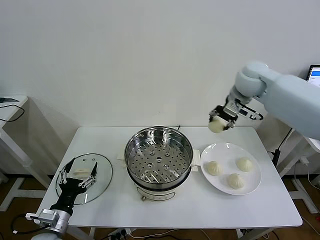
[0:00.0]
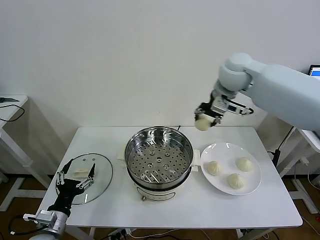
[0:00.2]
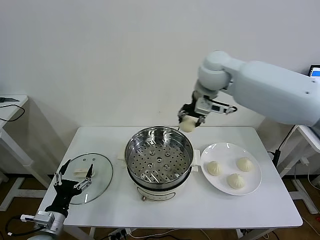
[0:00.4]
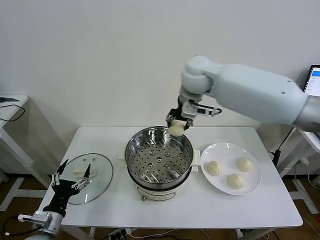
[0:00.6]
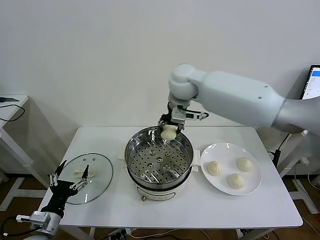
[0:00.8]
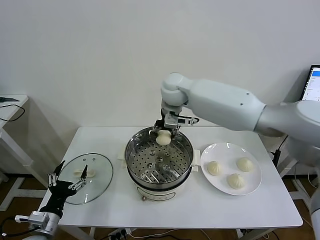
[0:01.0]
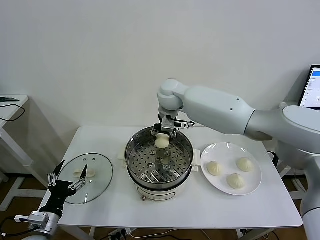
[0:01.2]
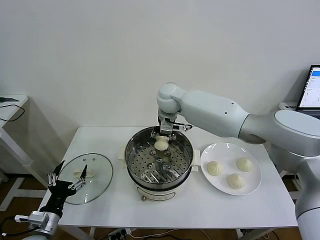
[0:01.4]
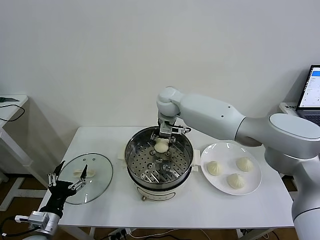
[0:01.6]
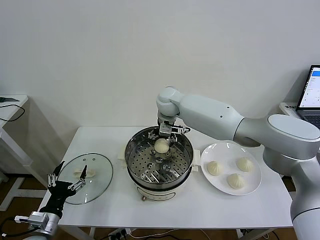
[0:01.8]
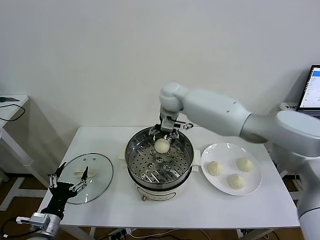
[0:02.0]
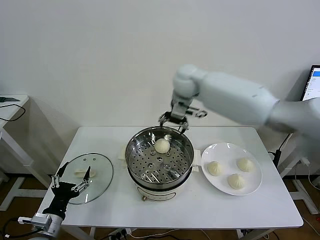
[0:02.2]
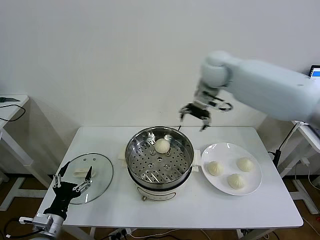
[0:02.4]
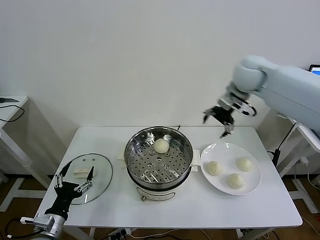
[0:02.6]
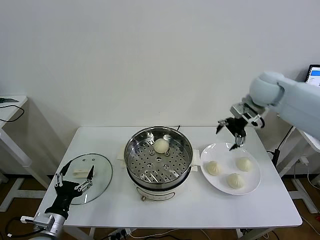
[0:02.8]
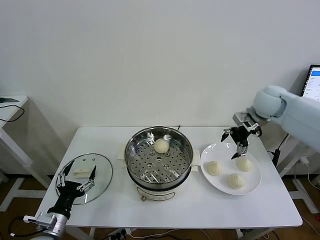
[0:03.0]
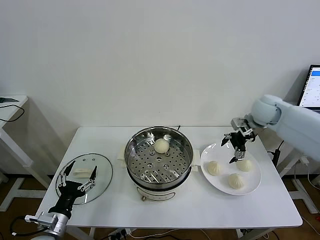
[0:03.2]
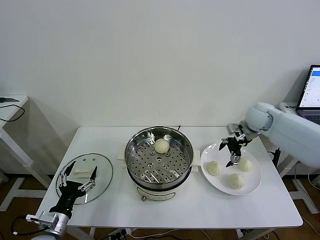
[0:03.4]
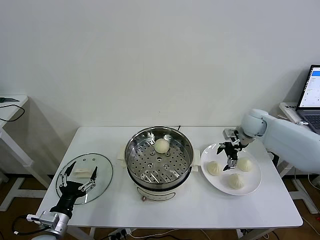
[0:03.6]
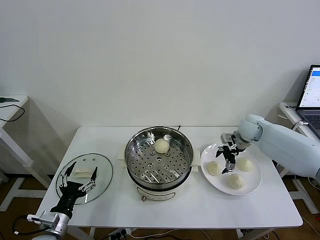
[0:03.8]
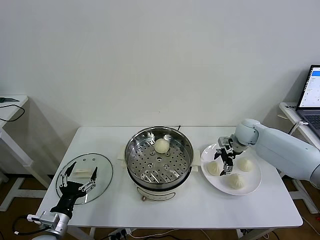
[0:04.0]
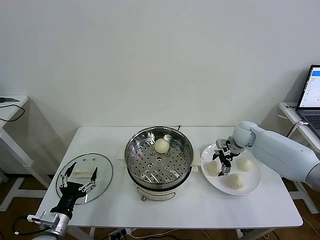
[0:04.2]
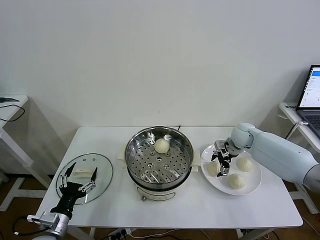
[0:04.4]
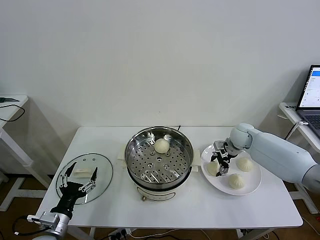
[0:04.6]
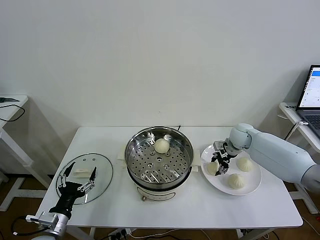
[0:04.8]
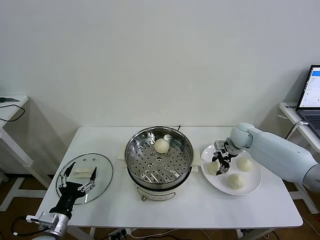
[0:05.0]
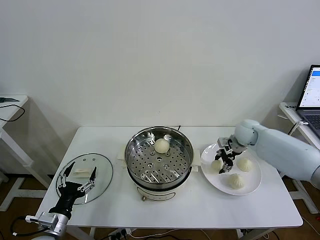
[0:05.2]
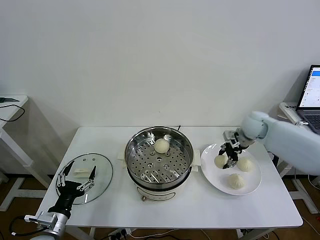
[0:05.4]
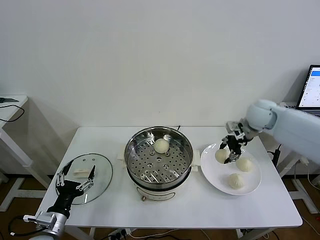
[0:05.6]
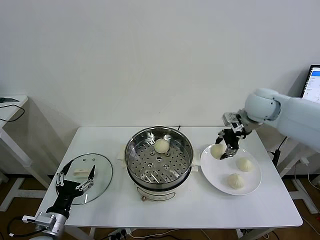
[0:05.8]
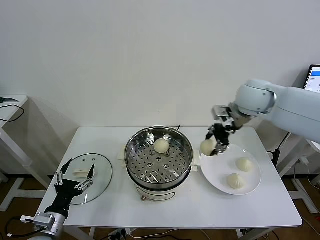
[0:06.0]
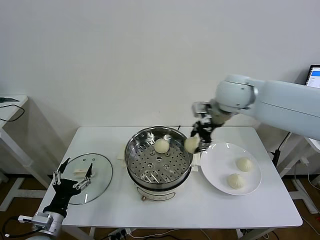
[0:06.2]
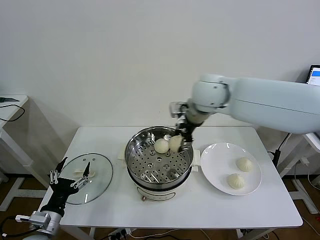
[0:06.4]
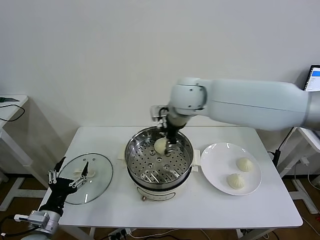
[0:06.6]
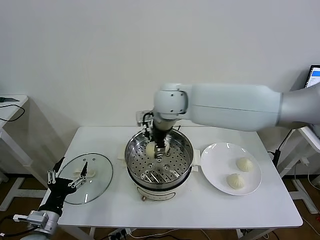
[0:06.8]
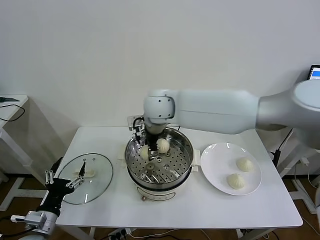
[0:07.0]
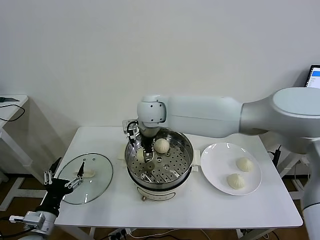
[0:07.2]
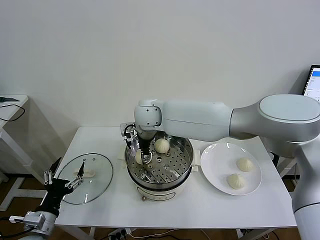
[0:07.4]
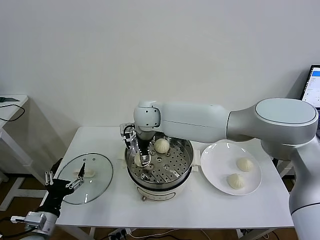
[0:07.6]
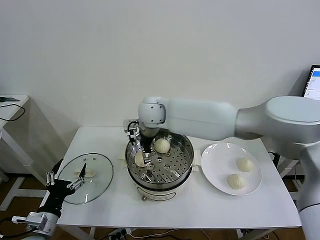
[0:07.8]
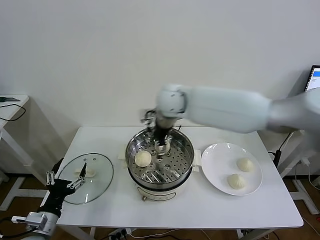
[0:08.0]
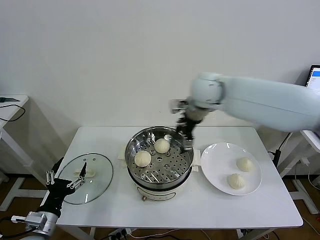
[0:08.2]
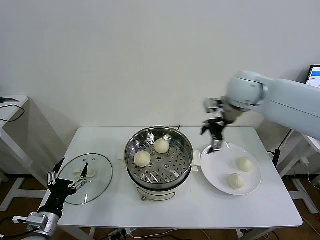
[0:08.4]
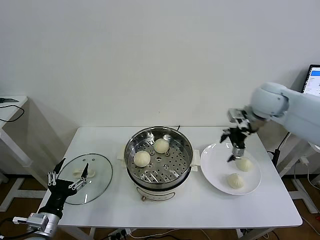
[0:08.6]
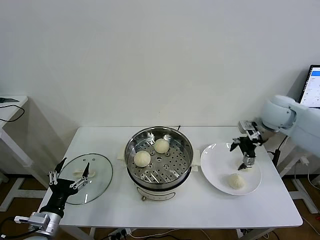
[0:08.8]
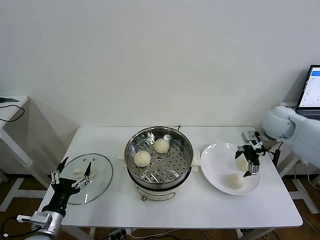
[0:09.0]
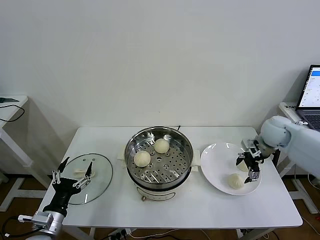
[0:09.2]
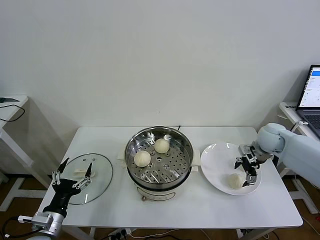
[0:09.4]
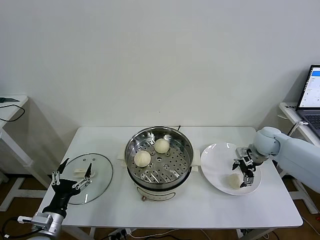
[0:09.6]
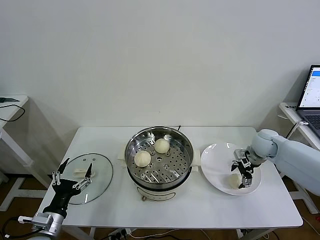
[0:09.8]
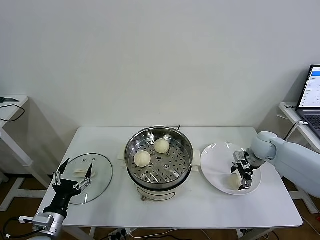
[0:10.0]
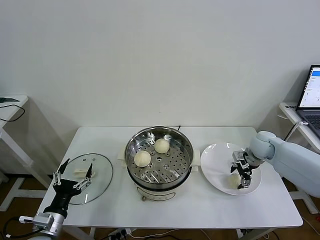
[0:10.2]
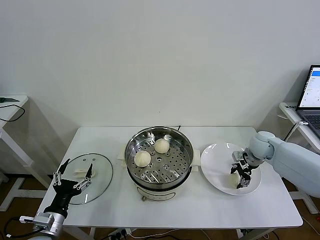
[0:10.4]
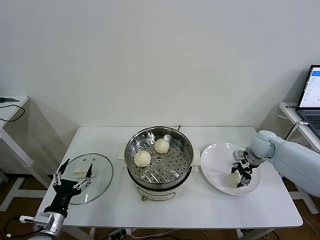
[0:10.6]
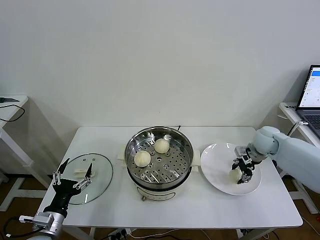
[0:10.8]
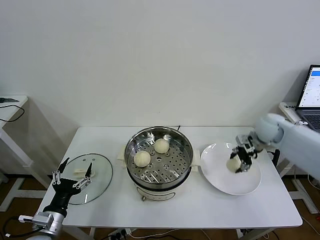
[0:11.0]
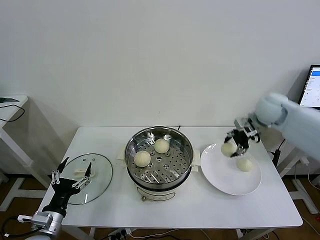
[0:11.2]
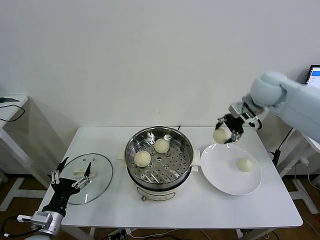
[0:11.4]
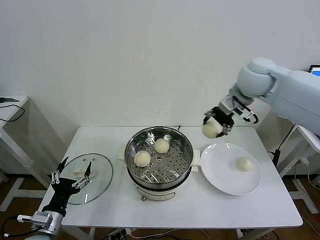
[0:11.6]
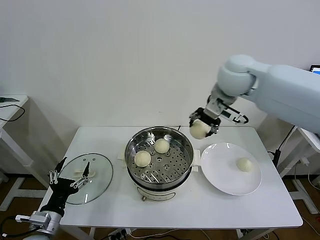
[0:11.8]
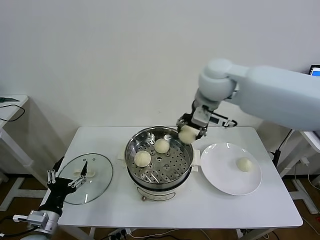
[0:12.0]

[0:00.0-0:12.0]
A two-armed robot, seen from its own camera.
Task of the whole recording: take steamed baozi put them in steamer then cover it.
Step, 0.0 to 1.8 s: Place the baozi on the steamer with right gripper.
Step, 2.0 to 4.8 s: Grasp the baozi in the plate with right gripper.
Step, 5.0 to 7.6 s: Place the baozi on the steamer with right gripper.
Step, 7.8 to 10.4 s: Grasp the baozi in the plate with right gripper.
0.0 to 1.6 s: The right gripper travels to the left and downward by some 25 cm, and opens up.
1.6 to 3.0 s: The right gripper is displaced to the right by roughly 30 cm, and opens its fingers.
3.0 to 4.4 s: The right gripper shifts approximately 15 cm downward.
4.4 to 6.0 s: The right gripper travels upward and to the left by roughly 25 cm, and closes its fingers.
6.0 to 7.6 s: The right gripper is displaced to the left by about 25 cm, and opens its fingers.
7.6 to 9.0 s: The right gripper travels to the right by about 40 cm.
9.0 to 10.4 s: The right gripper travels downward by roughly 10 cm, and closes its fingers.
10.4 to 12.0 s: The right gripper travels upward and to the left by about 35 cm.

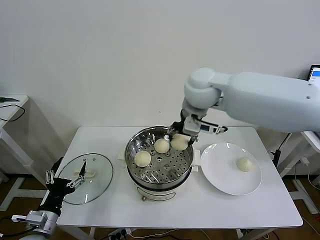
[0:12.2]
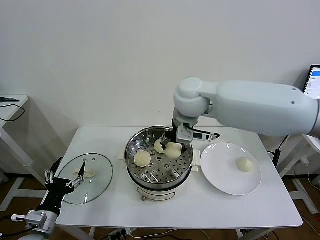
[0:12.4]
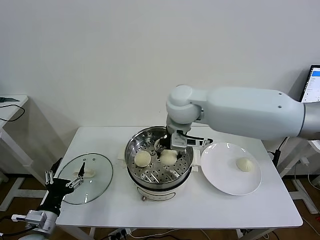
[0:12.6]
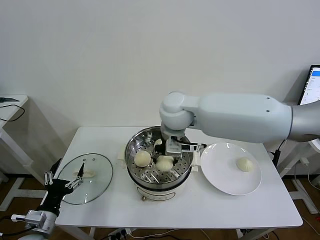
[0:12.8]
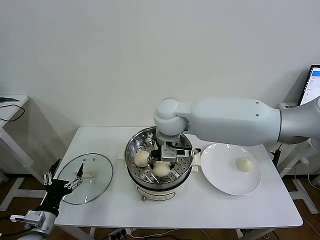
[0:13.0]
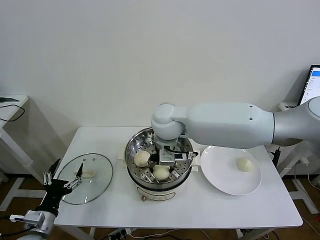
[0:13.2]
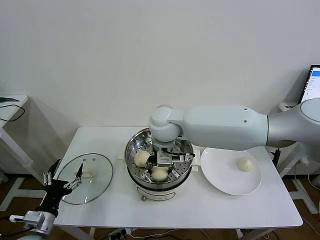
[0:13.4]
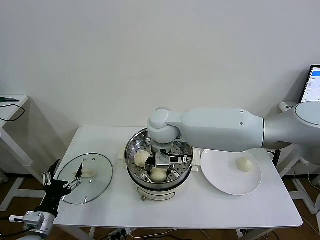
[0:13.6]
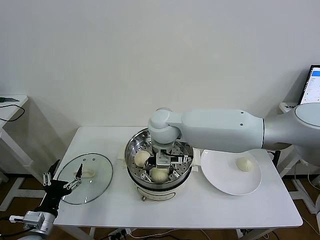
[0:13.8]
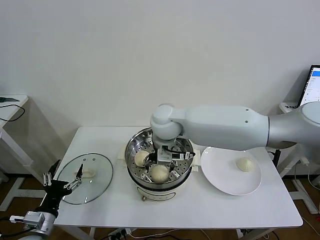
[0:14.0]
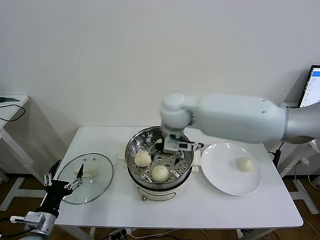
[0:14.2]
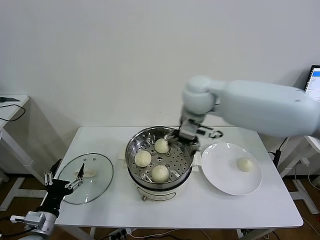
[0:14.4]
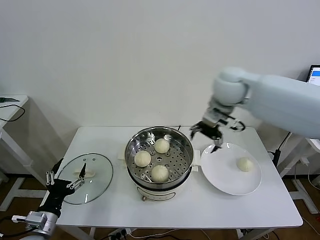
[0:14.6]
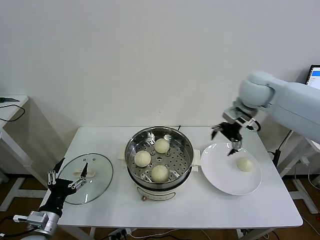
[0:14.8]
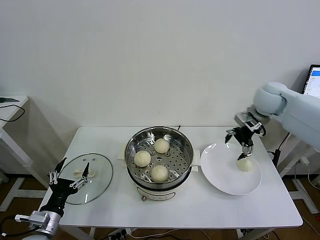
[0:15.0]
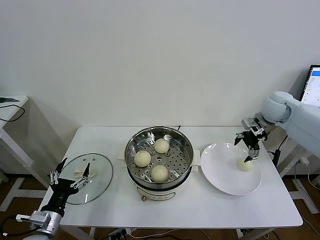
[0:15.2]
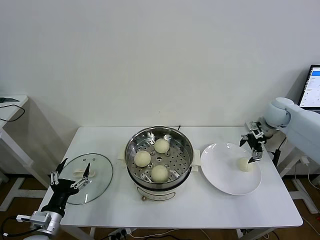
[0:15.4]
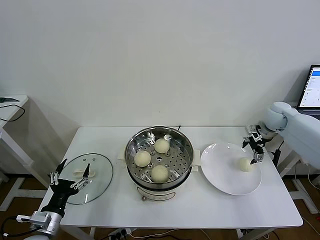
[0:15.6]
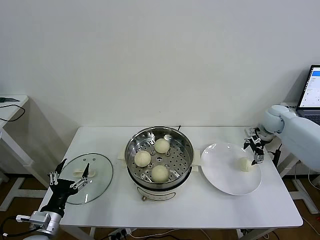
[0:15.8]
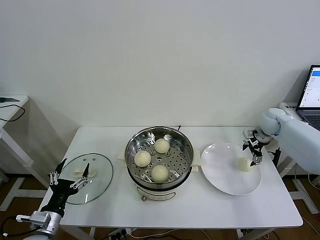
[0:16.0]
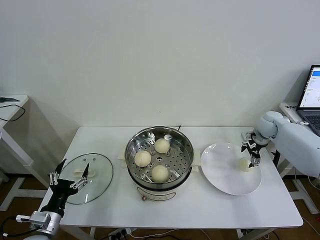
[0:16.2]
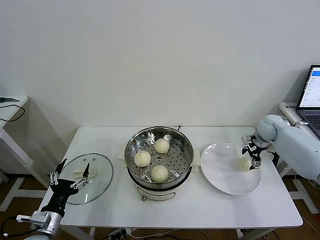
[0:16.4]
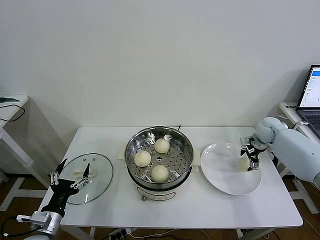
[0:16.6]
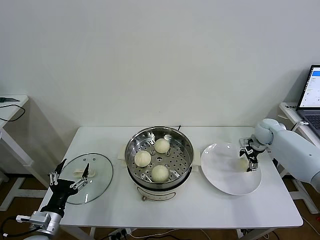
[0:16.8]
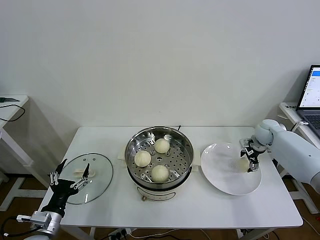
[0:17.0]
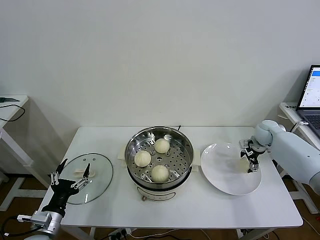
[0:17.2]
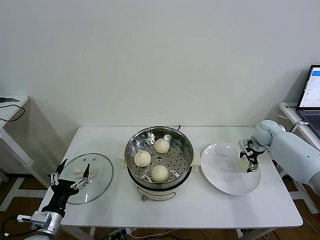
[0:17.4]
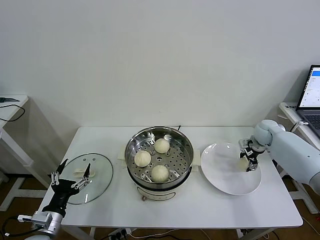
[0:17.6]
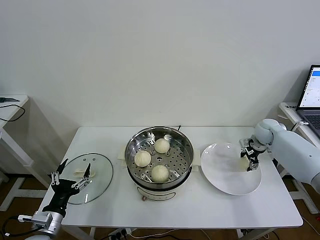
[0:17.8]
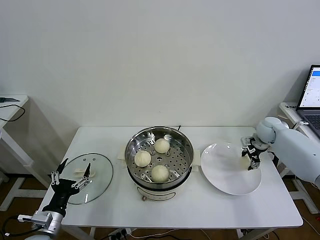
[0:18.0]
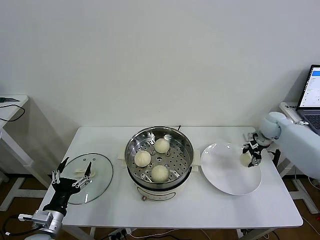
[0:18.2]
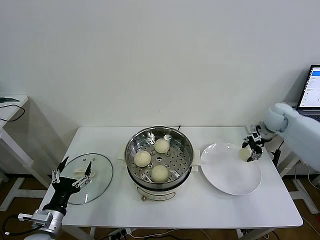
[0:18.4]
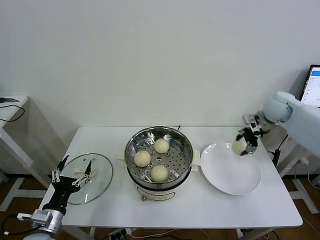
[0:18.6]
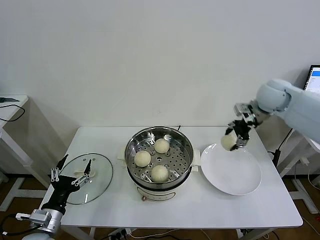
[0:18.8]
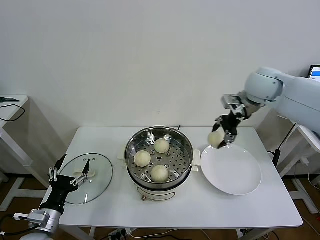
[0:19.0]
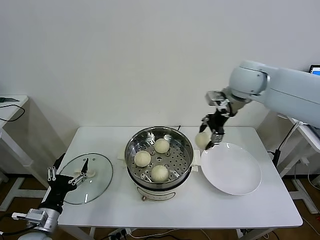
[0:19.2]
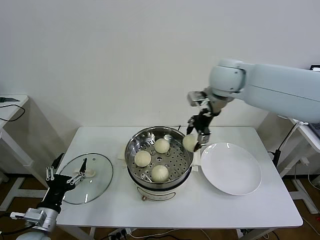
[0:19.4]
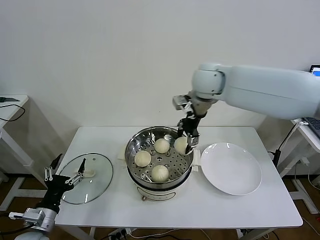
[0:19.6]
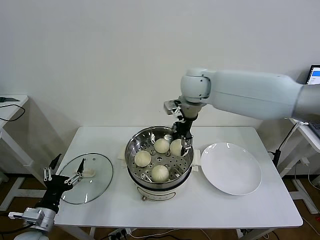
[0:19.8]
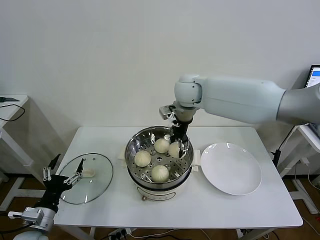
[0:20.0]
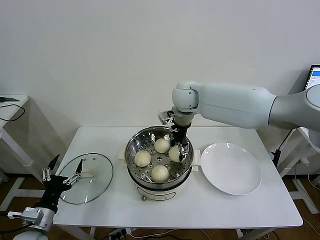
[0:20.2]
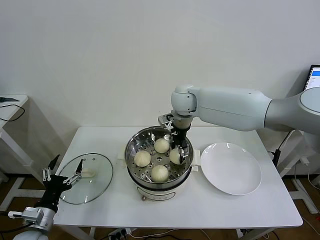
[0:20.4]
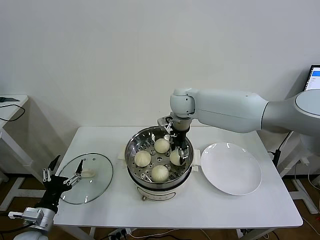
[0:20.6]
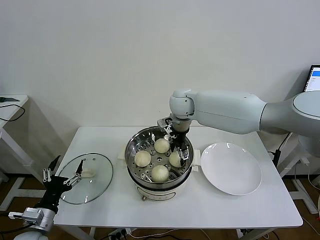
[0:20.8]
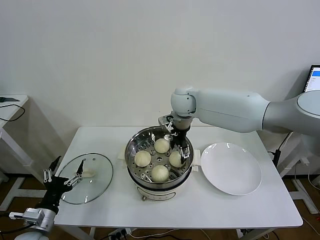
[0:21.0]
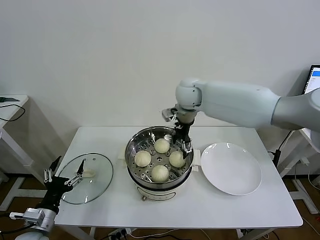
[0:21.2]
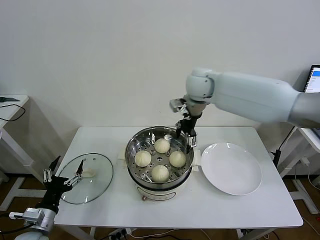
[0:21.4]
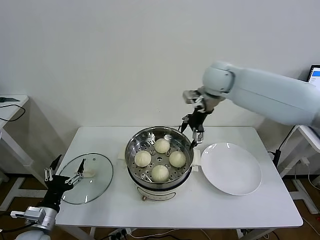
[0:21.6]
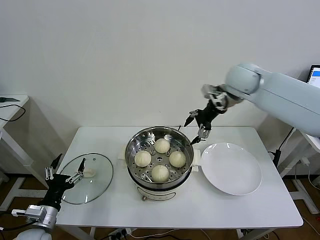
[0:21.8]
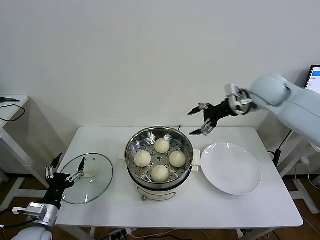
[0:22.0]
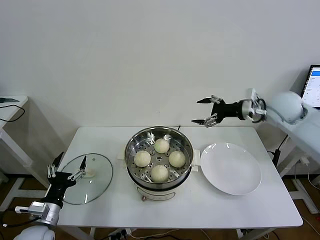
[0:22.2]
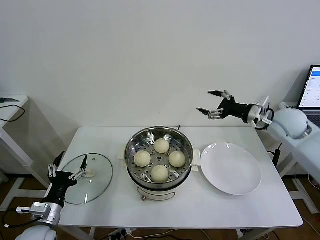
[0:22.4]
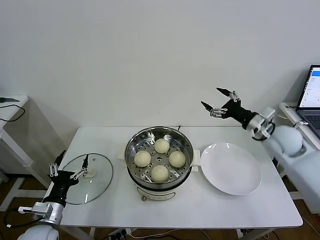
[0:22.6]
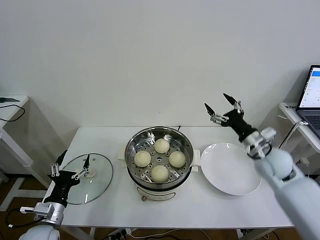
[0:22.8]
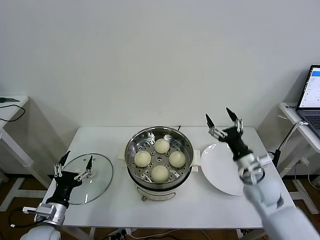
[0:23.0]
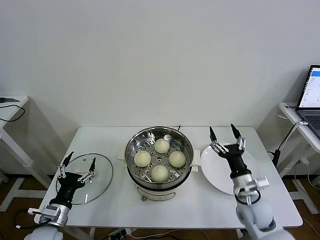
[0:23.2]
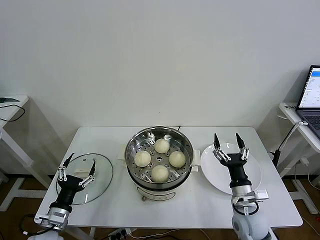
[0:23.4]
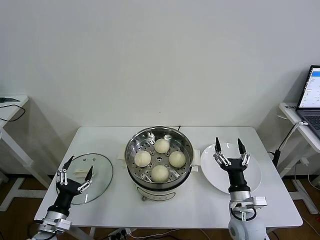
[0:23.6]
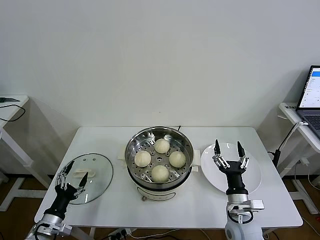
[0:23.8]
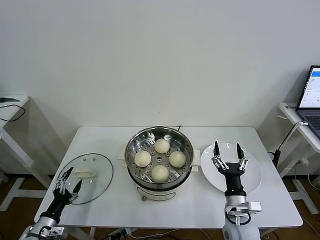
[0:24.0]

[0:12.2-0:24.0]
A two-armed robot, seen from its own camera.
Task of the whole recording: take steamed baozi put them in steamer then cover it.
Step, 14.2 to 17.6 s: Grasp the baozi in the plate with right gripper.
Step, 17.8 to 21.0 s: Place the baozi on the steamer with right gripper.
12.2 to 13.6 s: The right gripper shifts approximately 15 cm downward and to the left.
13.6 to 15.2 s: The right gripper is displaced to the right by about 40 cm, and opens up.
15.2 to 16.6 s: The right gripper goes some 15 cm downward.
16.6 to 18.2 s: The right gripper closes its fingers.
18.2 to 19.6 s: The right gripper moves to the left and upward, roughly 35 cm.
19.6 to 21.0 s: The right gripper heads downward and to the left, covering about 10 cm, and opens.
21.0 to 22.6 s: The right gripper is displaced to the right and backward by approximately 30 cm.
22.6 to 24.0 s: The left gripper moves downward and to the left, roughly 10 cm, while the right gripper moves downward, backward and to the left, about 30 cm.
